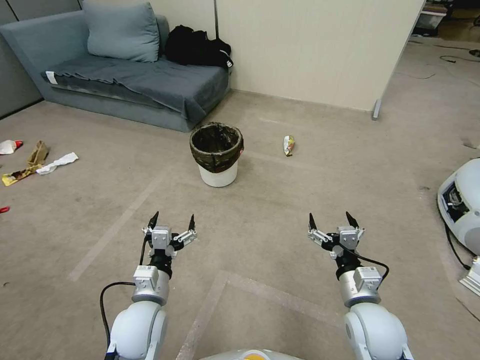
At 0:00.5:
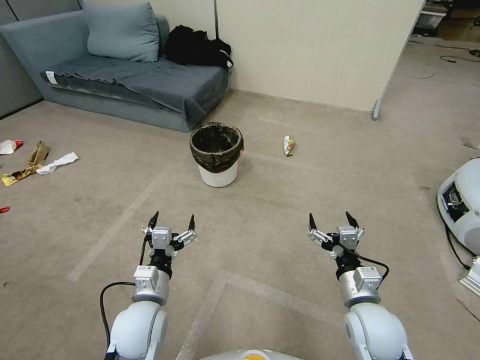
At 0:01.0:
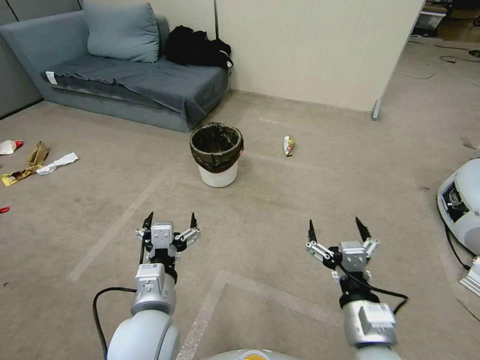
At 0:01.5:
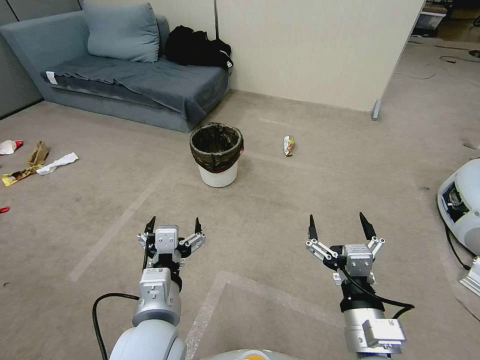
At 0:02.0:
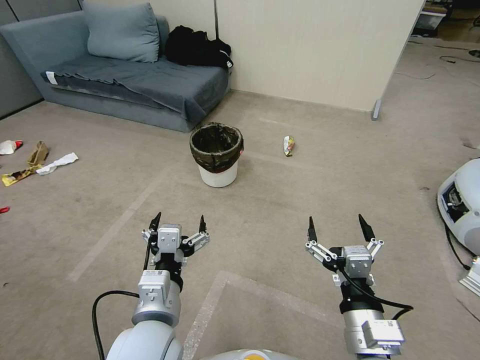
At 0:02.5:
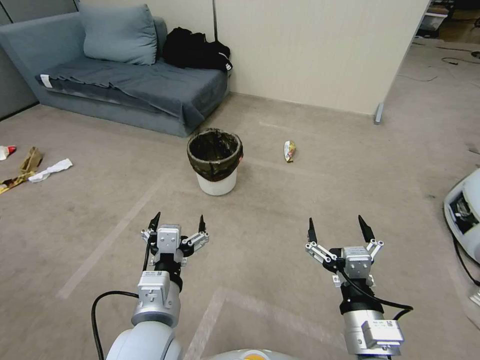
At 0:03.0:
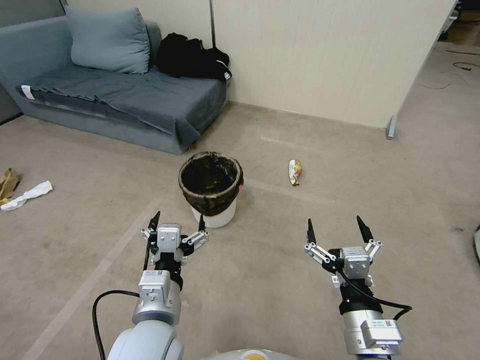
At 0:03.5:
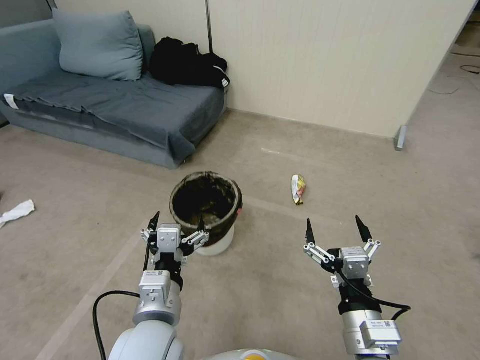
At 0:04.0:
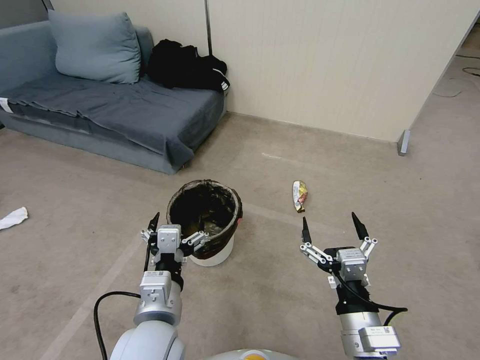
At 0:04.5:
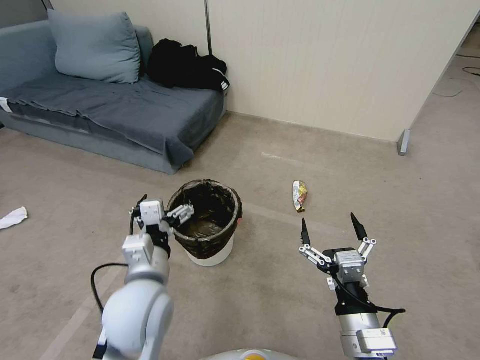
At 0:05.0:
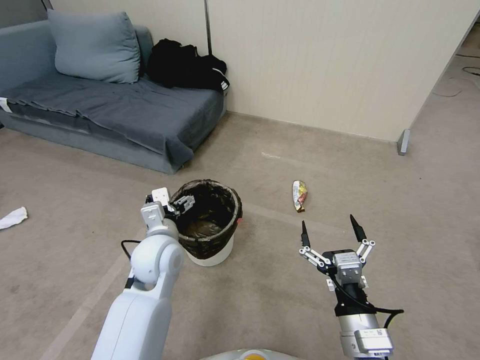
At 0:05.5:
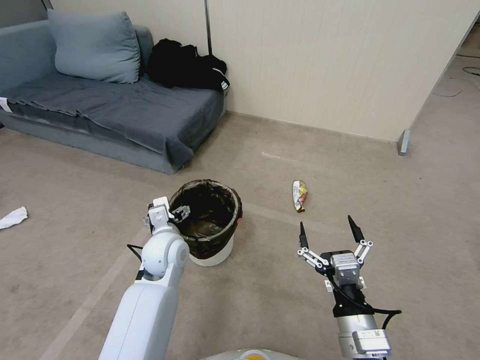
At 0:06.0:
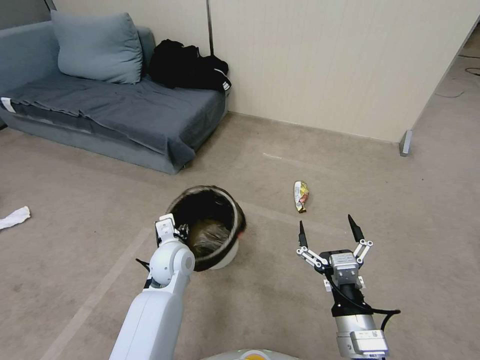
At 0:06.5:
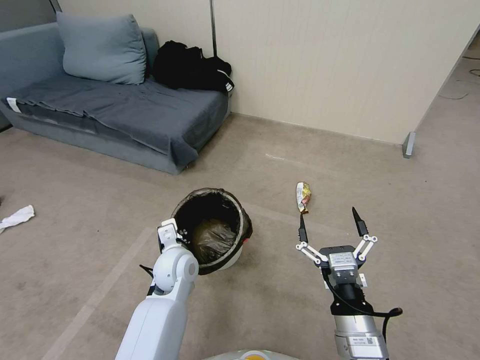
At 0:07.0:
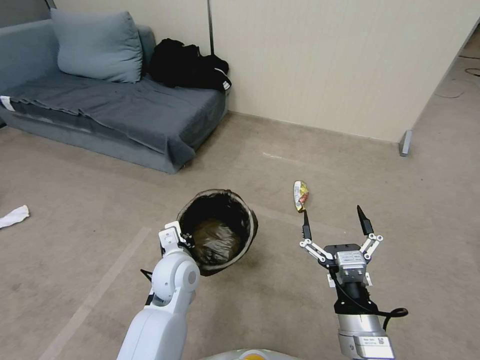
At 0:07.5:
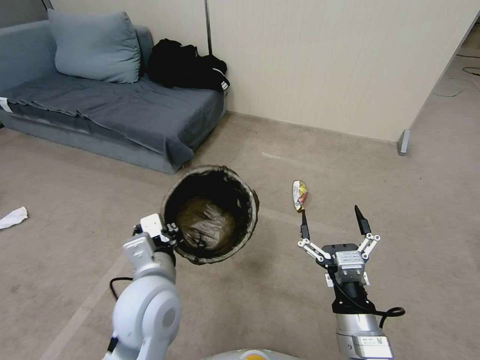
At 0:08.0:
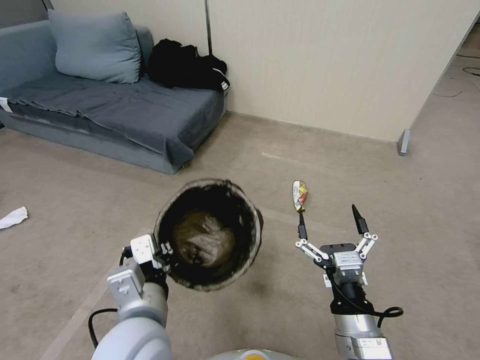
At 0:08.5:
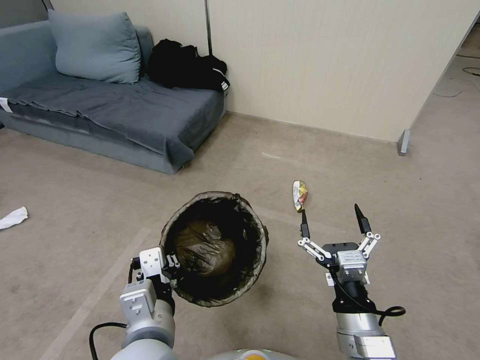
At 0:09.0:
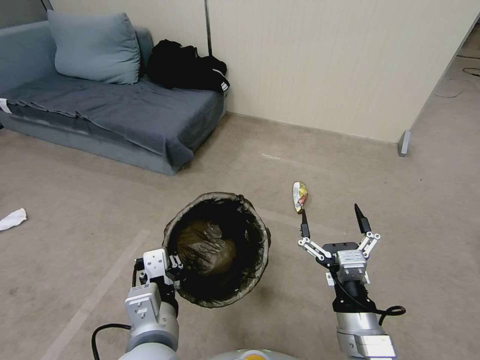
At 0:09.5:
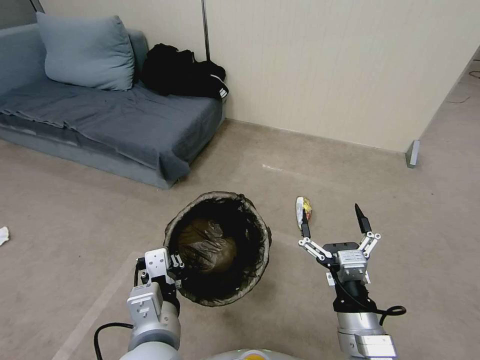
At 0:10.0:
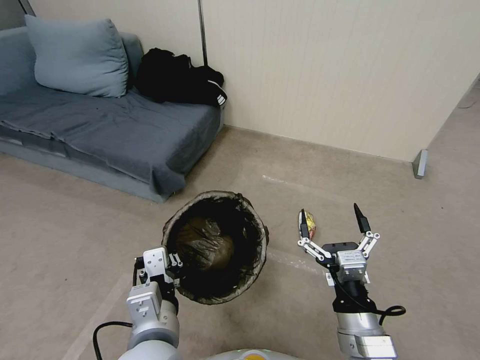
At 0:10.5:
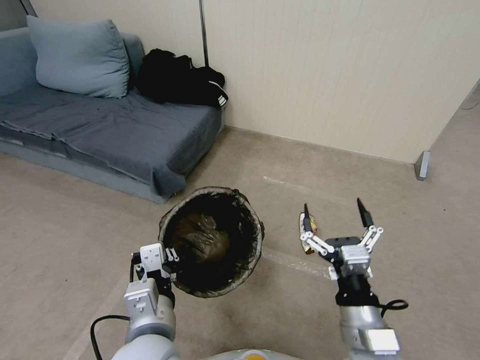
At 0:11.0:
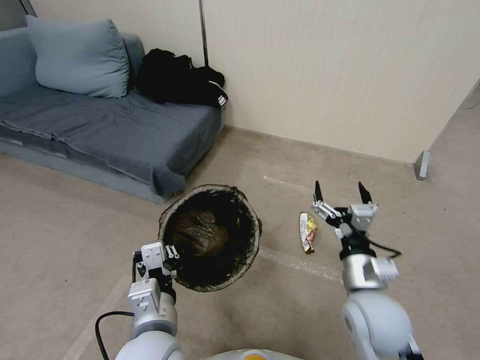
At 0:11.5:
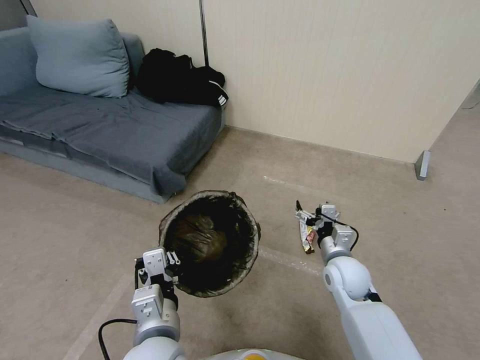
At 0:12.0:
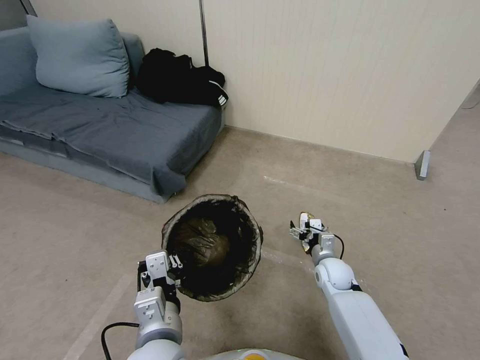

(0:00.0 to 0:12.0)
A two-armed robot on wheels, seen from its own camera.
Task of the whole recording: Pick up the trash bin, then pick up the garbage from the floor and place it into the trash bin.
0:04.0 - 0:06.0: The left gripper is displaced forward and downward by some 20 cm, and closes up.
0:06.0 - 0:08.0: The left gripper heads backward and upward, covering about 25 cm, and closes up.
0:10.0 - 0:12.0: The right gripper moves forward and downward, some 30 cm.

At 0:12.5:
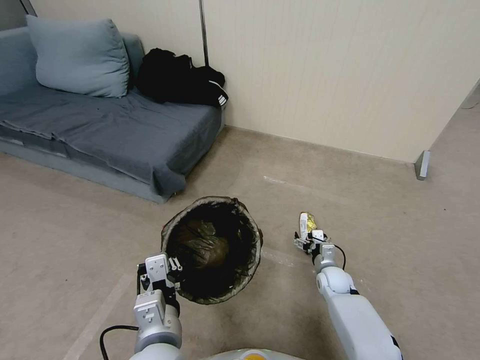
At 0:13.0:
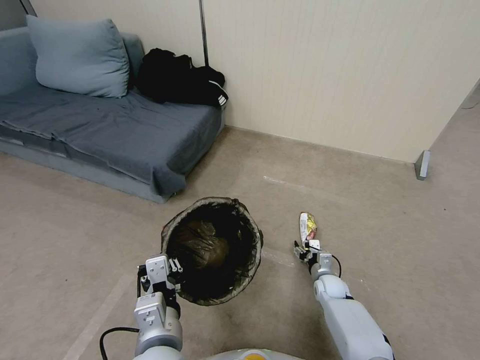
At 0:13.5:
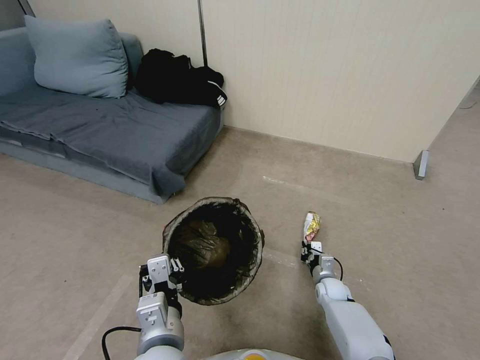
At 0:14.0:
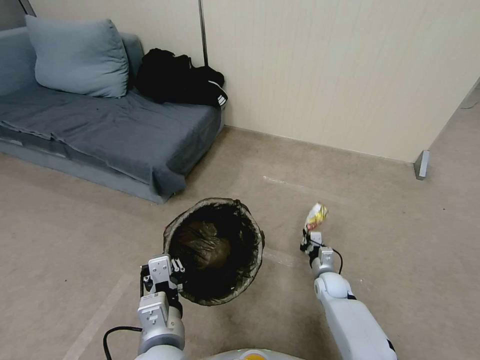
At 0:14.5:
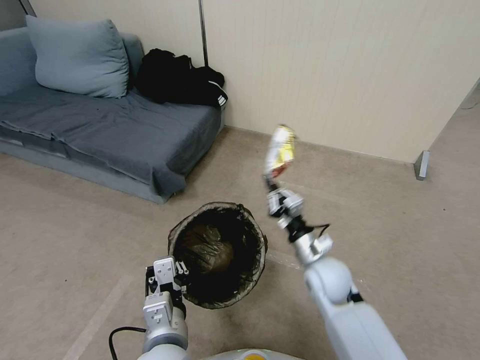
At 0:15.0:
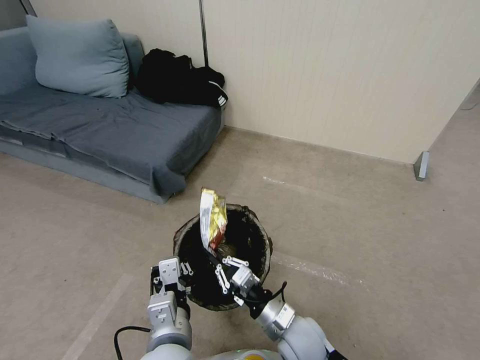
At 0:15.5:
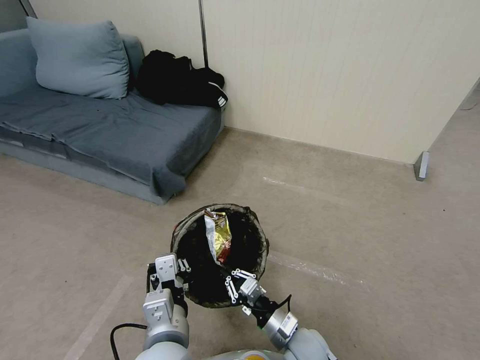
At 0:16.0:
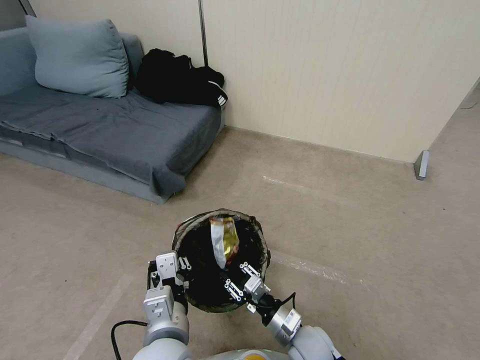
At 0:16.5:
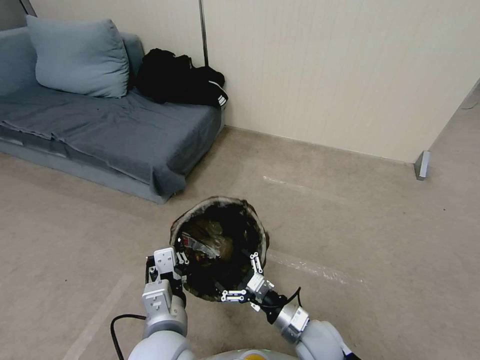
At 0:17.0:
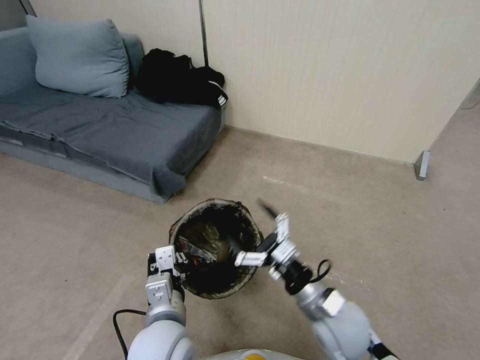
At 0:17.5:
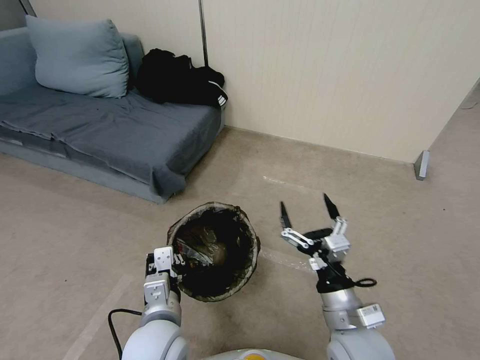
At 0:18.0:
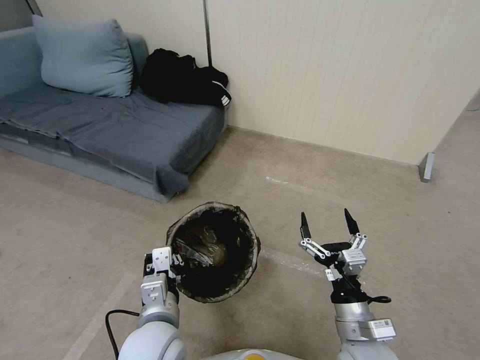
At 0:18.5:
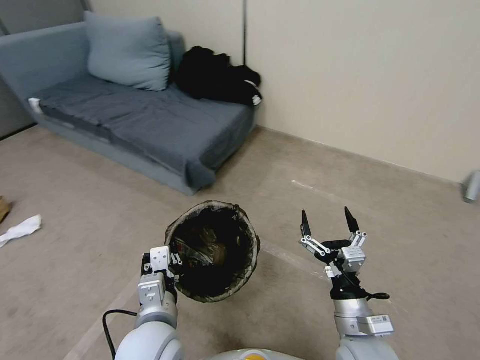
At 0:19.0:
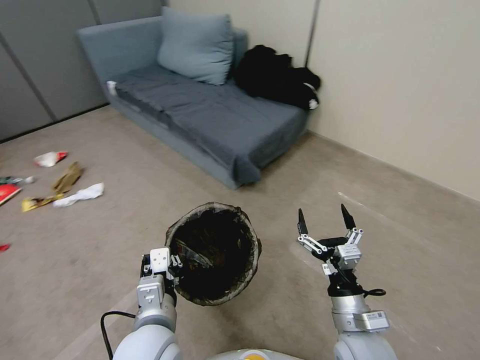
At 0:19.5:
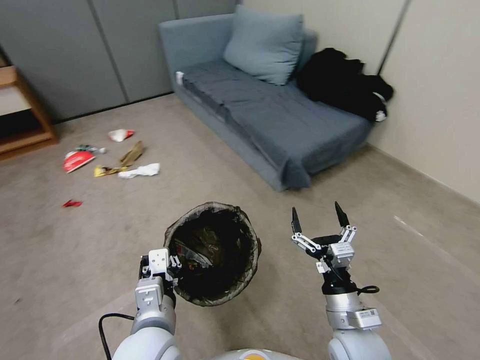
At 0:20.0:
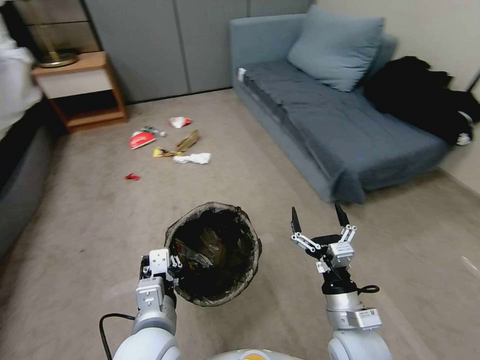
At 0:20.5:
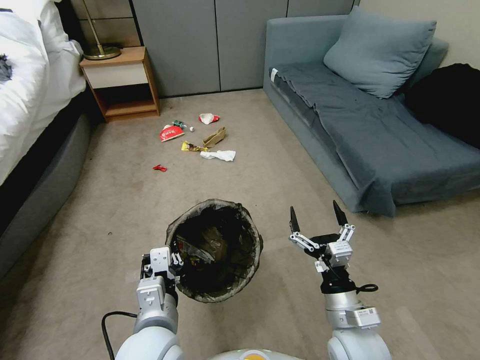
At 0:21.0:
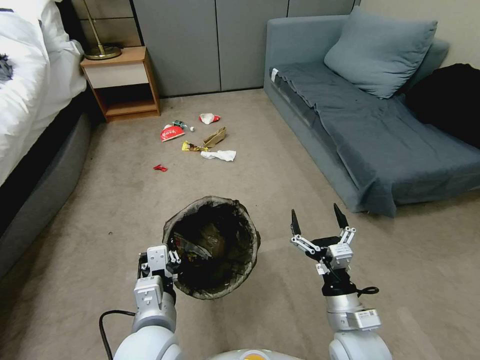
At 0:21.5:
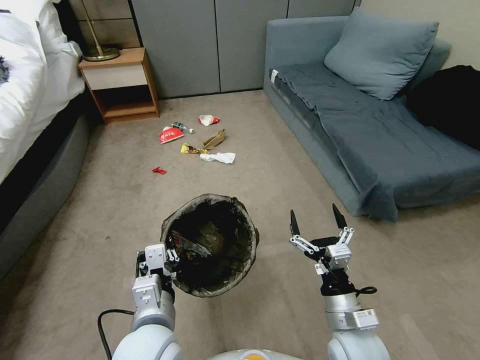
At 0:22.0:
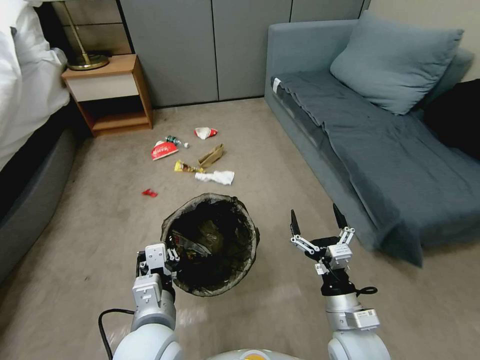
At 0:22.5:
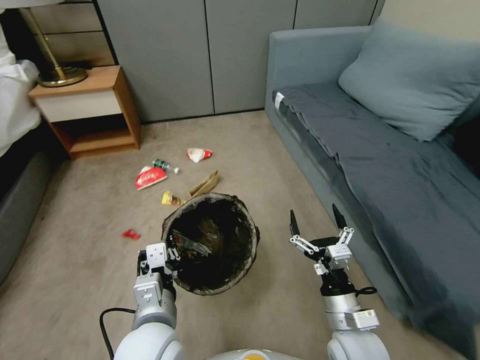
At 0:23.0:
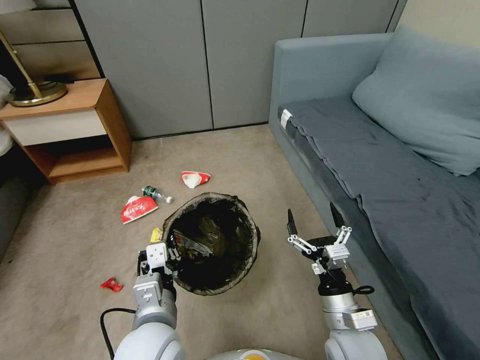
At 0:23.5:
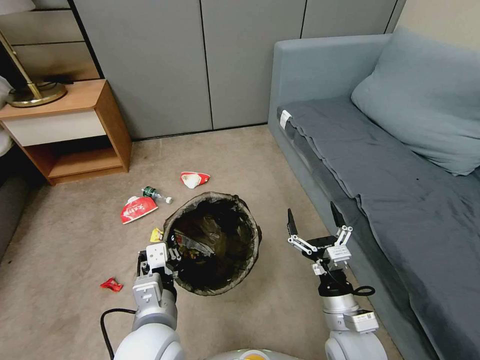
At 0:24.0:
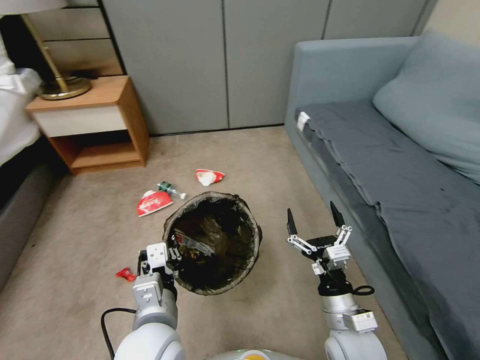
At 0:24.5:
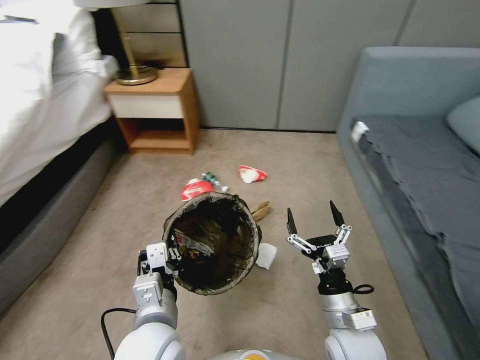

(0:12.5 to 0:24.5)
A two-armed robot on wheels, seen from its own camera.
Task of the whole recording: Pick up the trash bin, then pick up the garbage from the floor and place it into the trash bin.
0:12.5 - 0:14.5: The right gripper heads upward and to the left, covering about 20 cm, and closes up.
0:14.5 - 0:16.5: The right gripper is displaced backward and downward by about 15 cm, and opens.
0:16.5 - 0:18.5: The right gripper shifts approximately 10 cm upward and to the right.

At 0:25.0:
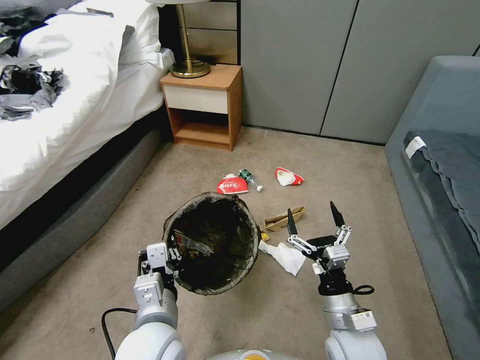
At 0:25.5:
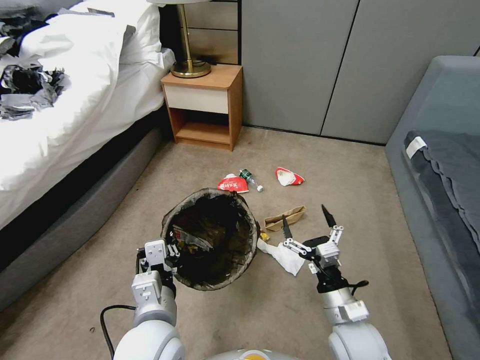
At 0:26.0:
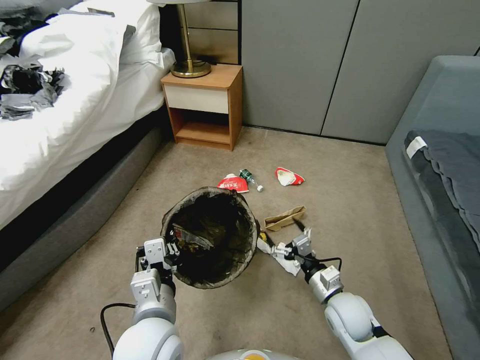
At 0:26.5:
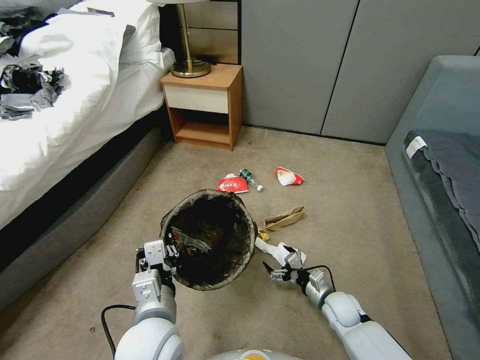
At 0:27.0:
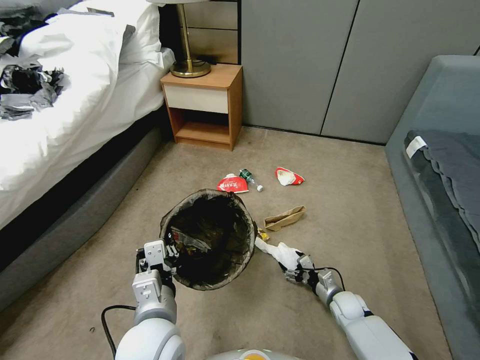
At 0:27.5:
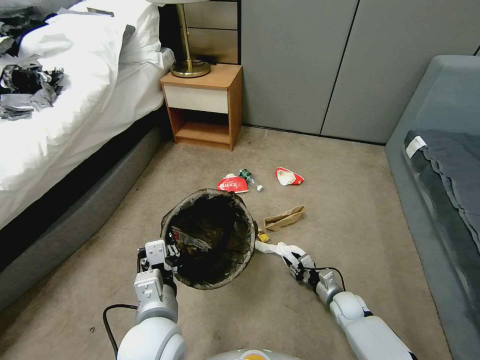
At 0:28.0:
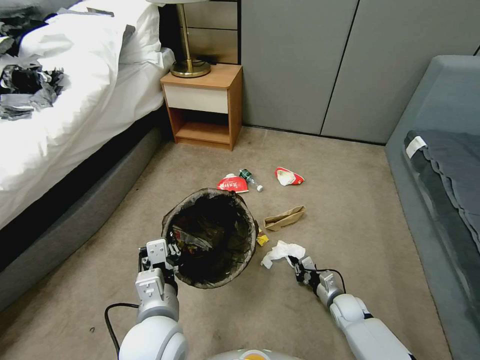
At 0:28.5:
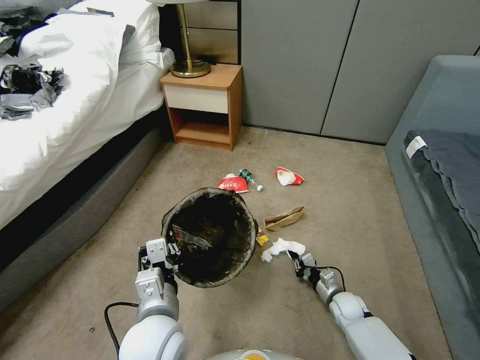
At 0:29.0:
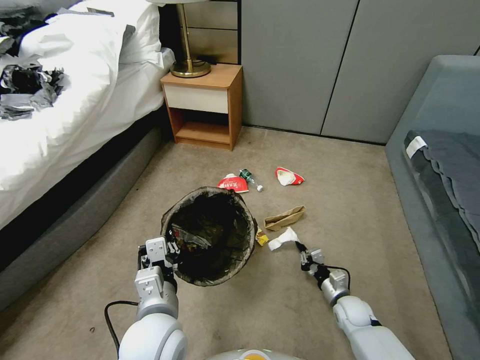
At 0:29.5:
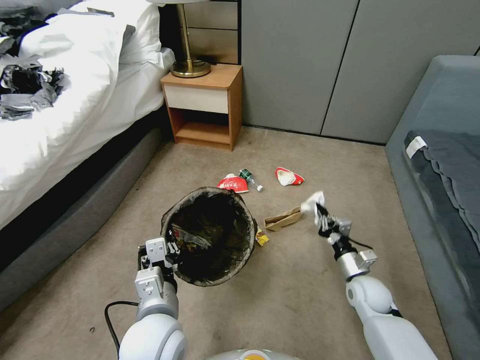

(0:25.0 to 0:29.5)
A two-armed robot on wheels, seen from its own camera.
Task of the whole recording: Pick up the trash bin, then pick up the garbage from the floor and place it into the trash bin.
0:25.0 - 0:27.0: The right gripper goes approximately 25 cm downward, forward and to the right.
0:27.0 - 0:29.5: The right gripper shifts approximately 10 cm upward, and closes.
